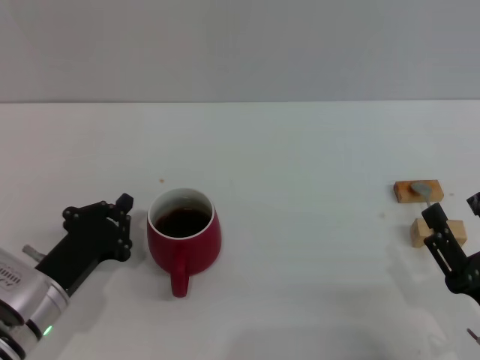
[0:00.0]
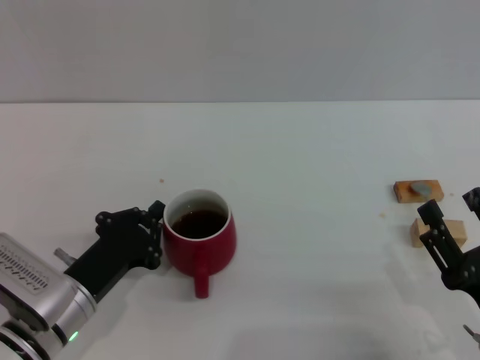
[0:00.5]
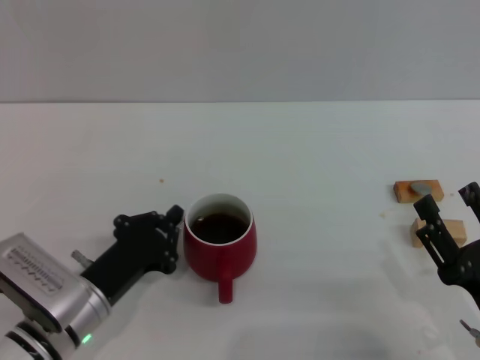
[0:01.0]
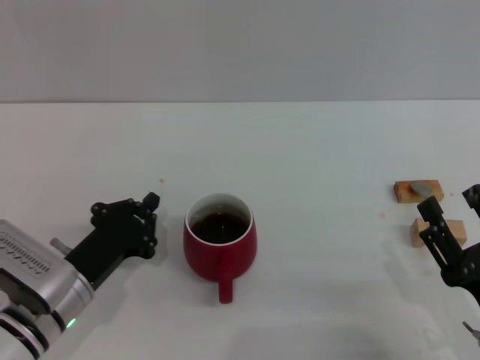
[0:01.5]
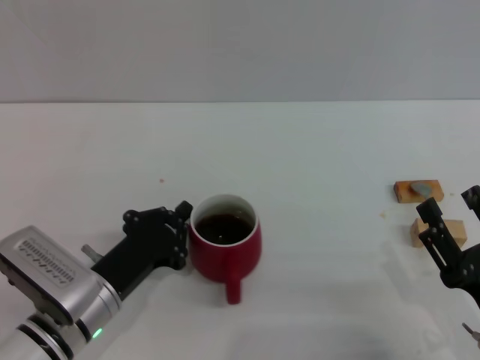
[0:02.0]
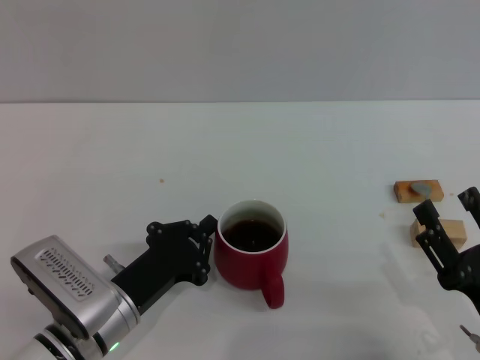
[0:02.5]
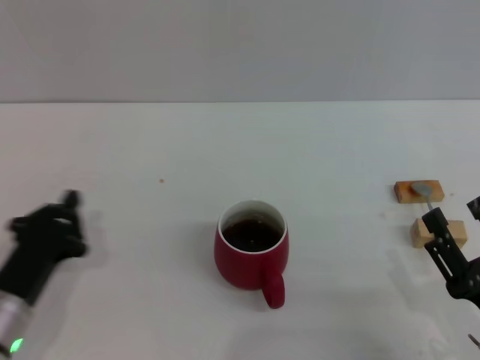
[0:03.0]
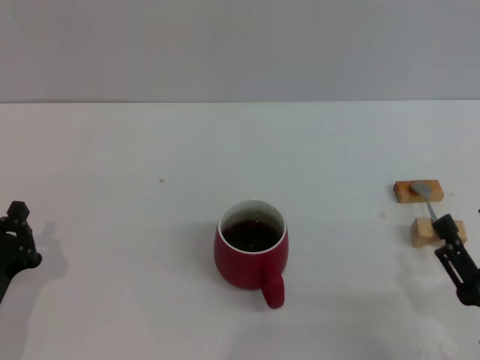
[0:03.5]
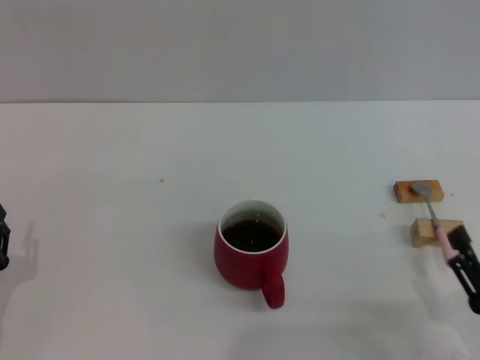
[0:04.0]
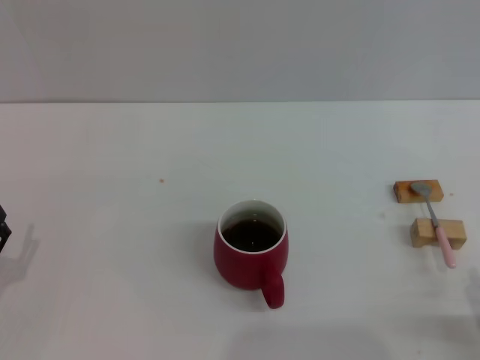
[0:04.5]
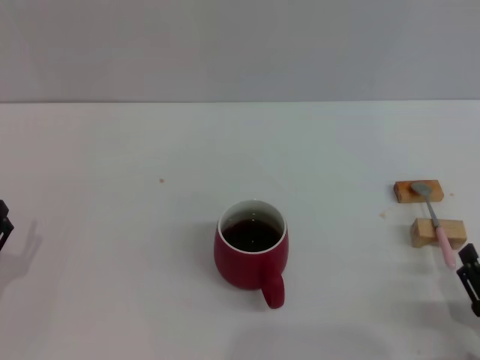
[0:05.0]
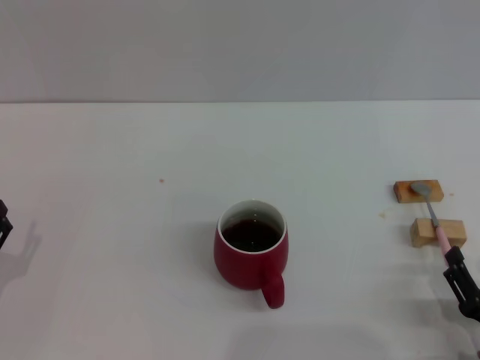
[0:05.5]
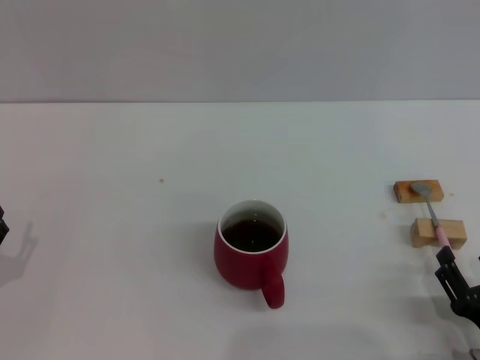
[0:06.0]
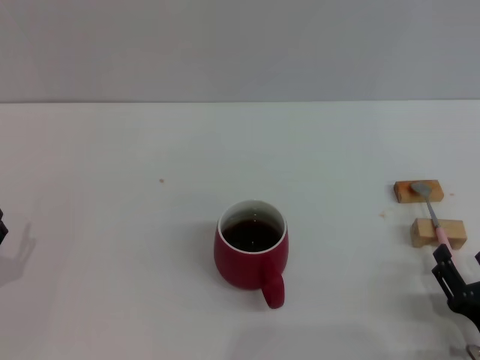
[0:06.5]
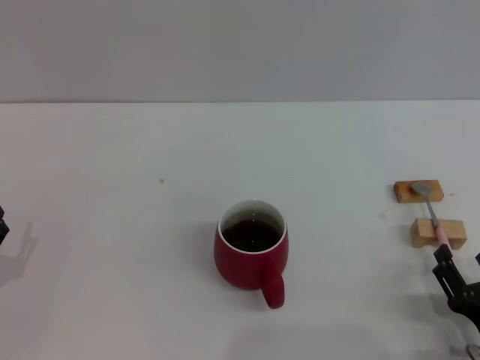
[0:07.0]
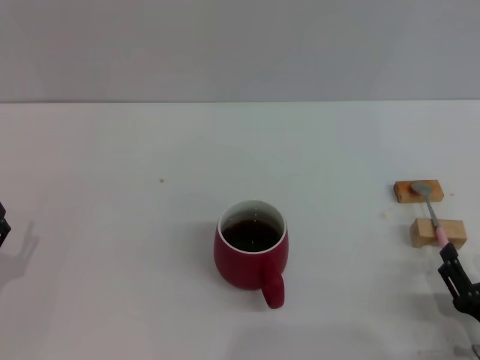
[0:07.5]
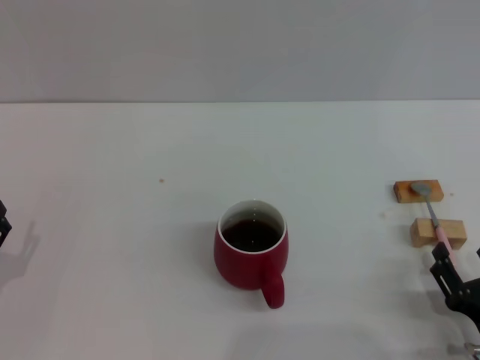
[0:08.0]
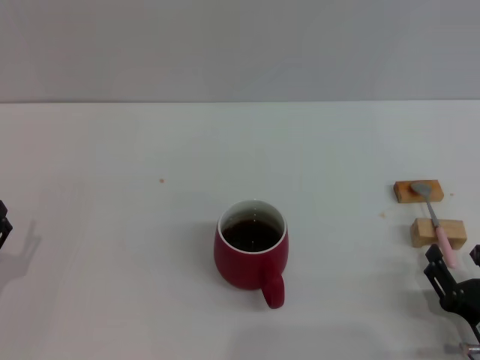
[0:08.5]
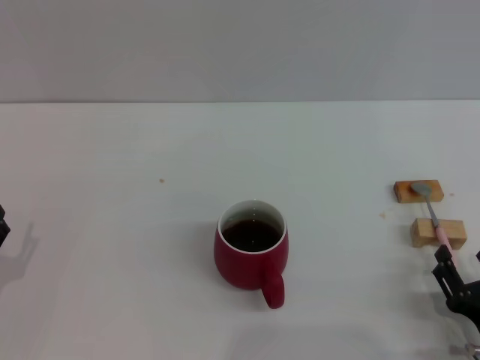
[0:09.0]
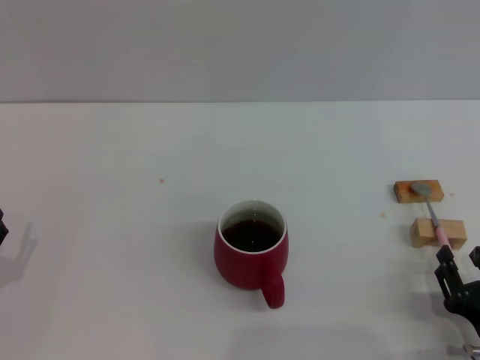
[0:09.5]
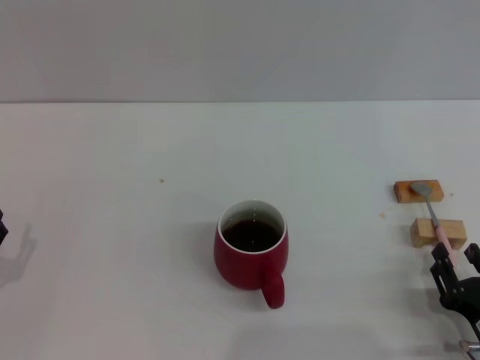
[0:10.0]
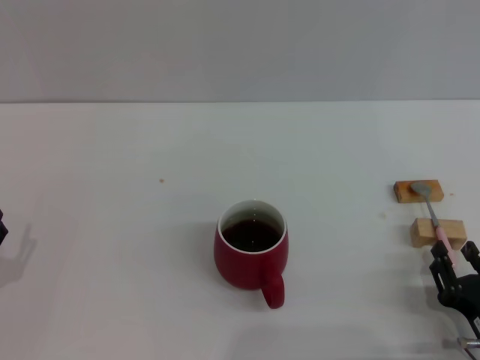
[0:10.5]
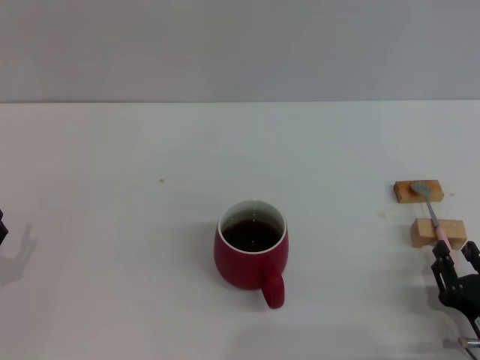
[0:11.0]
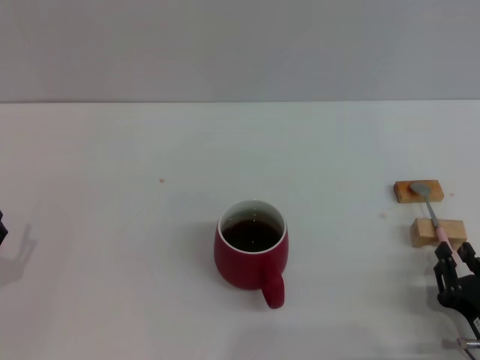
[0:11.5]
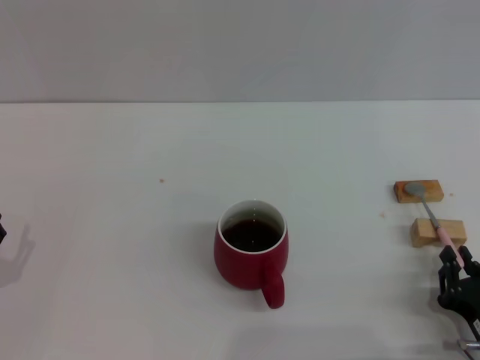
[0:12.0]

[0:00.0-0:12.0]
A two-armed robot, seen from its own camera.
Task of the whole recording: Move the red cup to the center, lift the pink spoon, stir it three times in the cup, and put the spoon into the cup.
Step, 0:00.0 to 0:02.5: Move the cup with coffee to the center of view with the left gripper.
0:00.0 to 0:02.0: There are only small adjustments of the grippers.
0:02.0 to 0:04.0: The left gripper goes some 15 cm to the left and backward.
0:08.0 to 0:10.0: The two grippers keep their place.
0:10.0 to 0:12.0: The right gripper closes.

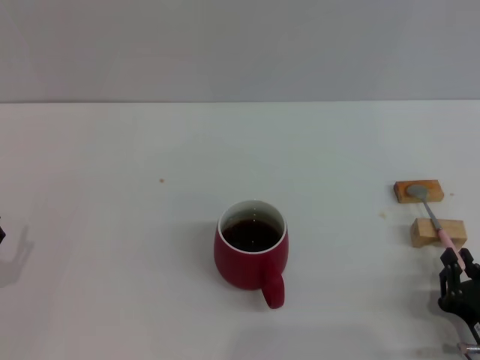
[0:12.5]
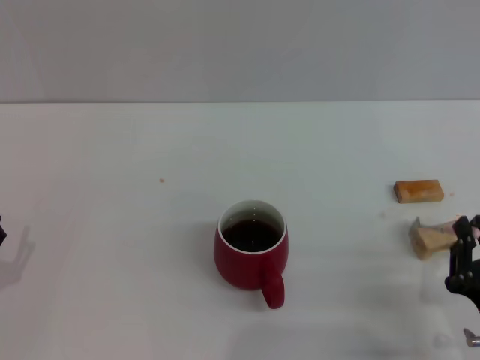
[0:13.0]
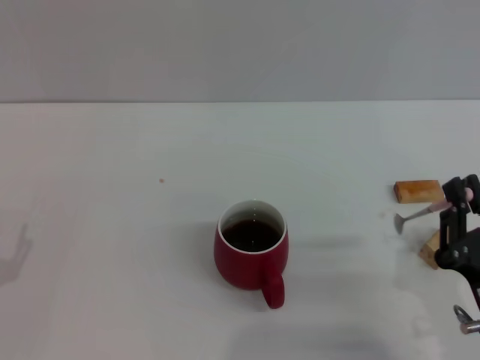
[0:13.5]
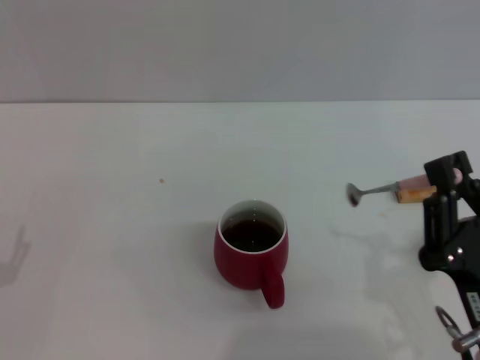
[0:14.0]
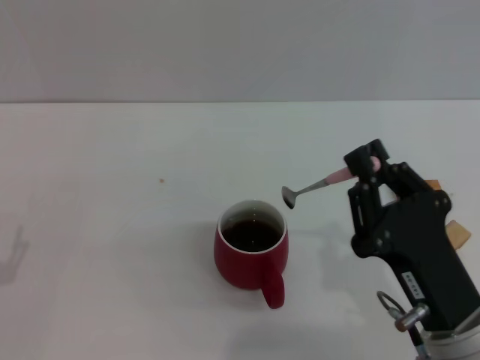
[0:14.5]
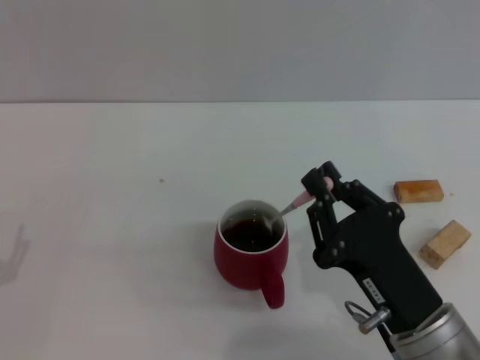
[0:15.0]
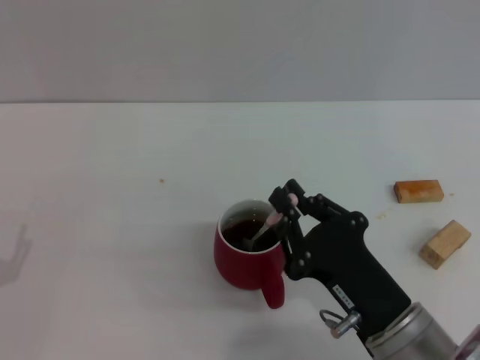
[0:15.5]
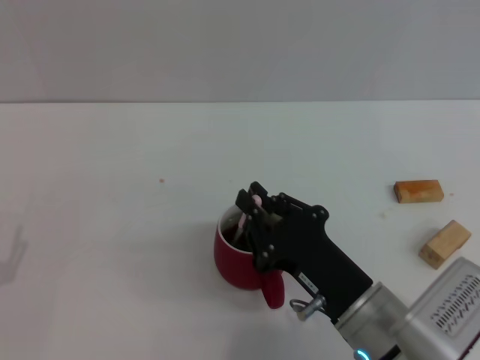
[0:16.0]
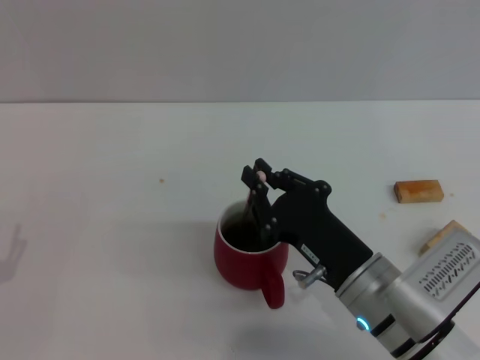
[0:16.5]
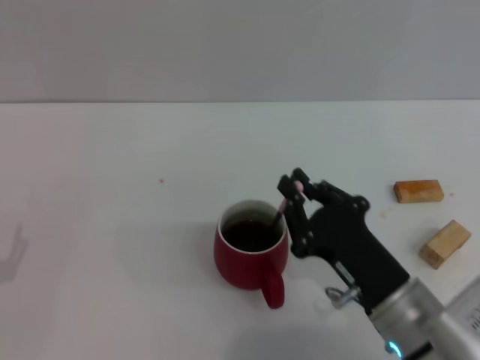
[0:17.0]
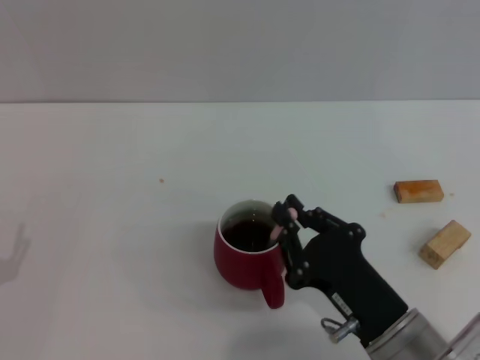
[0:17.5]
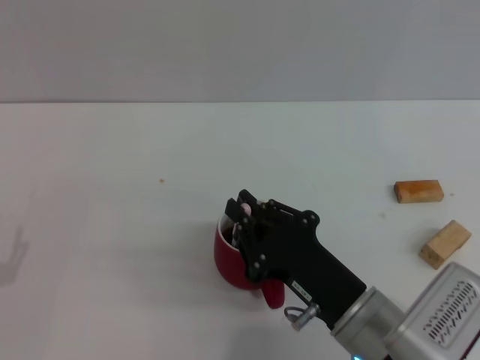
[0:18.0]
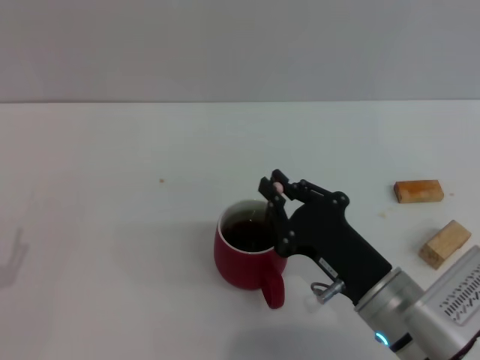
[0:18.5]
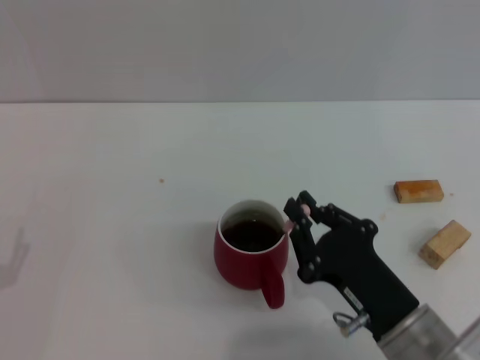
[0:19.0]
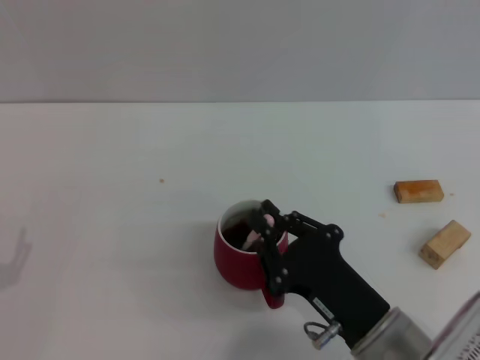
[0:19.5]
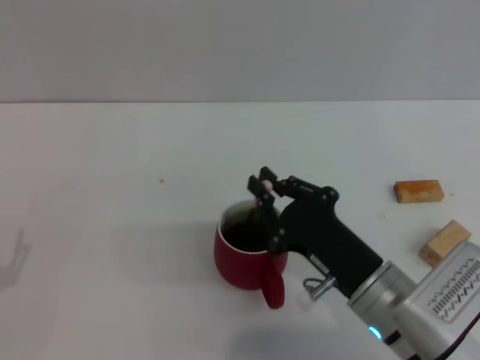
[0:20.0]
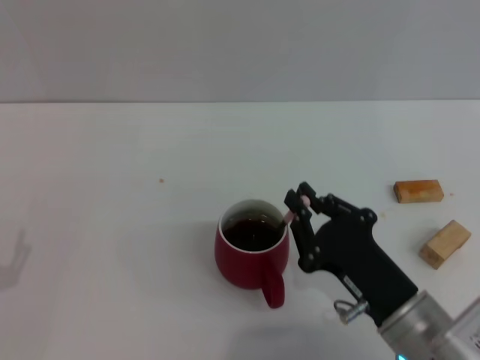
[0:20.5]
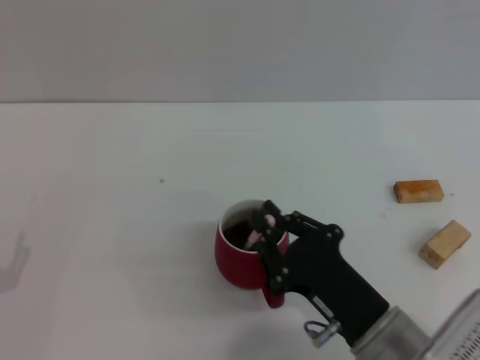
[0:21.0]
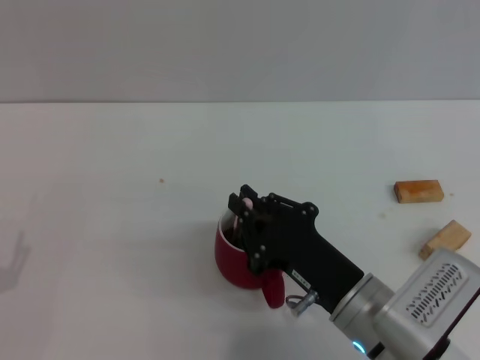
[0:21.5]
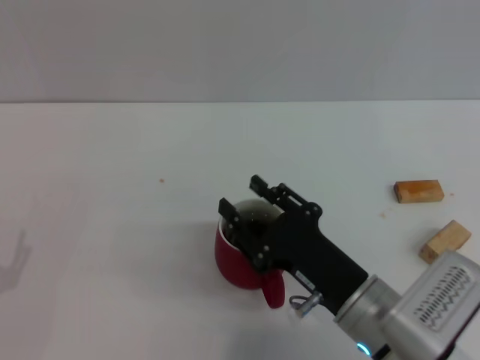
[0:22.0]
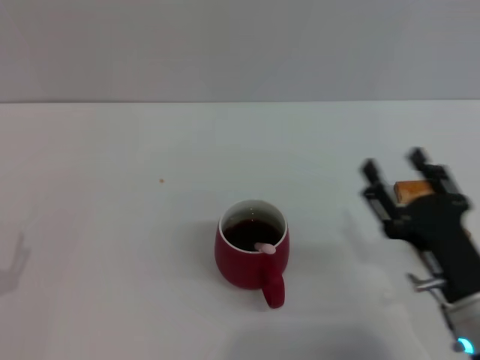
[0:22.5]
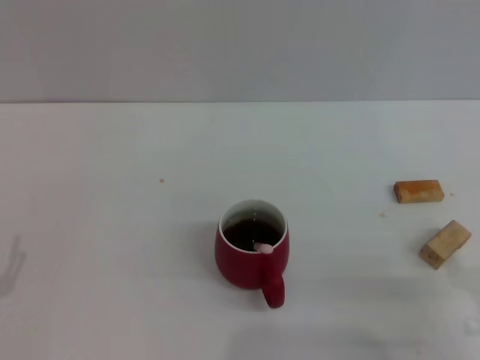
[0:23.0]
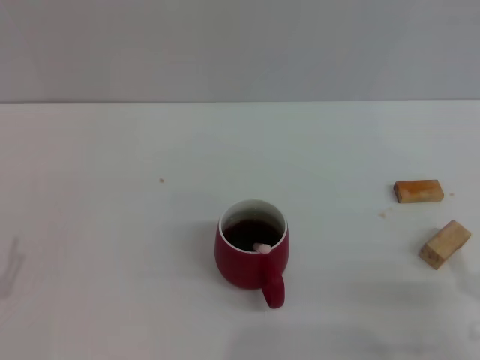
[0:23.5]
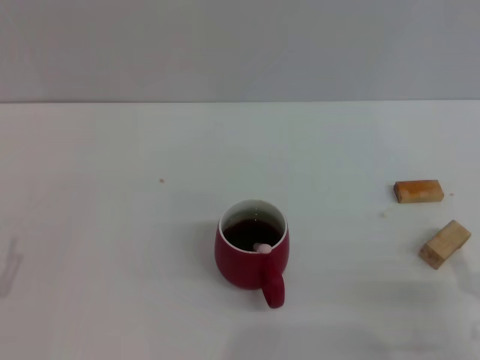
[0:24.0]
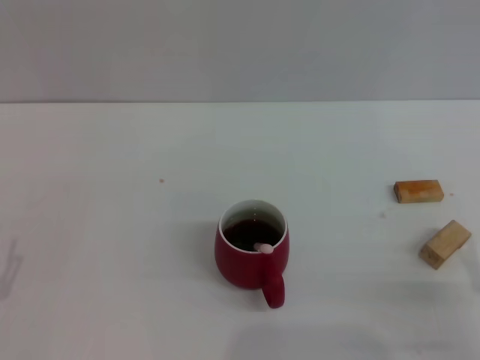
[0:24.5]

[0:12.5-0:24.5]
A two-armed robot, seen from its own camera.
Task of the whole recording: Move the red cup to the center, lift the pink spoon, stir it three times in the cup, and put the spoon into the cup.
Step, 0:14.0 to 0:22.0: Stir the coffee in the cup with the right gripper.
0:12.5 to 0:14.5: The right gripper travels upward and to the left by about 15 cm.
0:14.5 to 0:16.5: The right gripper moves forward, about 5 cm.
0:16.5 to 0:20.5: The grippers move only a little.
0:20.5 to 0:22.5: The right gripper opens its fingers.
0:22.5 to 0:24.5: The right gripper goes some 10 cm to the right and backward.

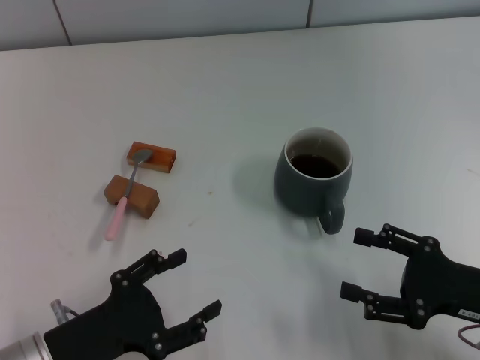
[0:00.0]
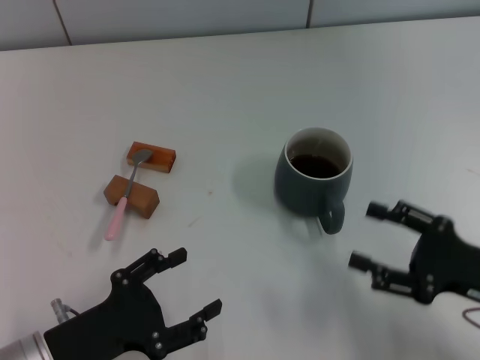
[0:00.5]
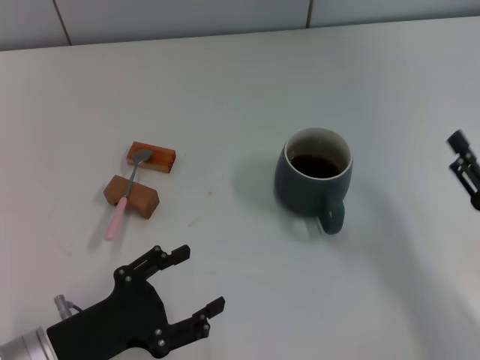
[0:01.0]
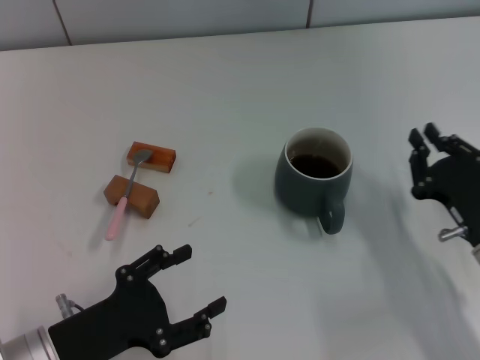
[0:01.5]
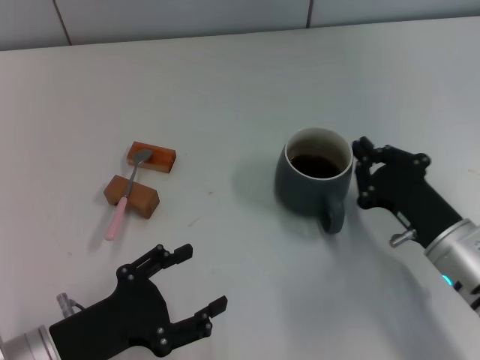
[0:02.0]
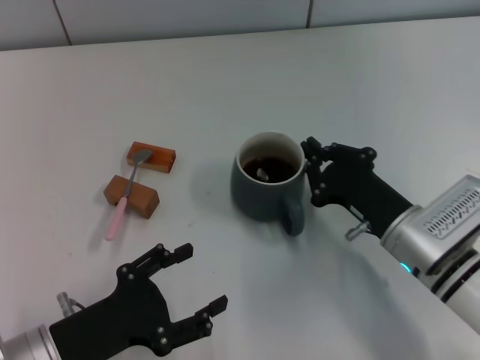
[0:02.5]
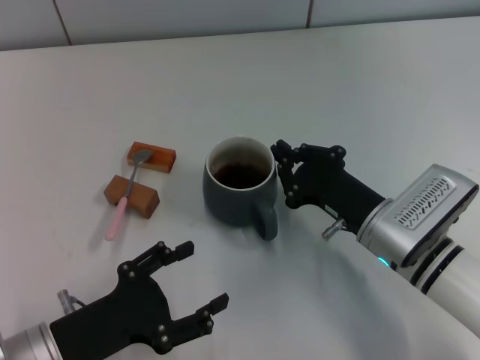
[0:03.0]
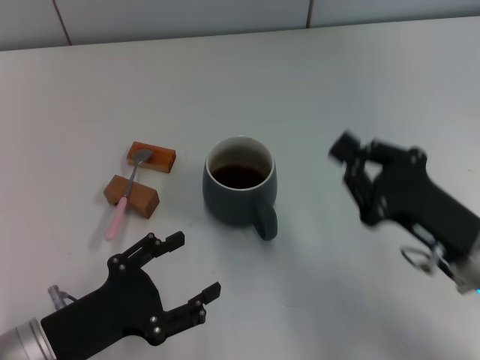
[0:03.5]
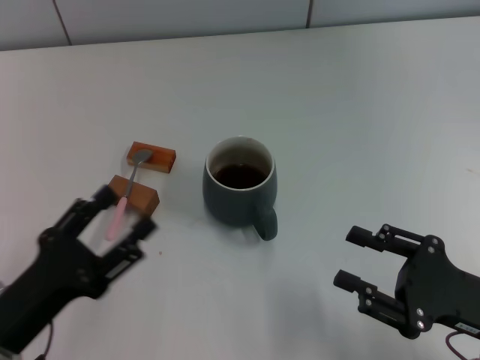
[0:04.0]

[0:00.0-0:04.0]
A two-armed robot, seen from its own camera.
Task of the whole recording: Move the grey cup to the center, lift the pink spoon, stir it three times in the cup, and put the spoon into the cup.
Step, 0:00.0 to 0:03.0: Move the cup with coffee to the center of view with the right gripper.
0:00.0 to 0:02.0: The right gripper goes about 5 cm to the left, and closes up.
0:02.0 to 0:04.0: The right gripper goes roughly 5 cm backward, and opens its fingers.
